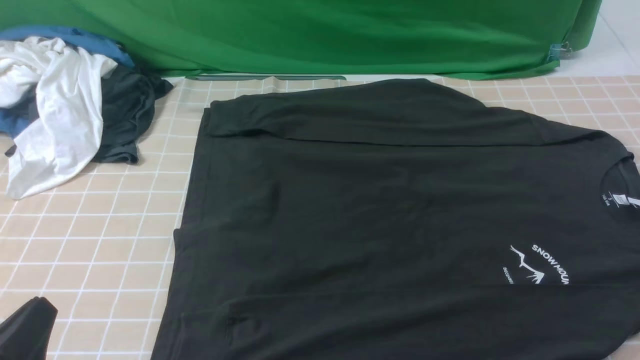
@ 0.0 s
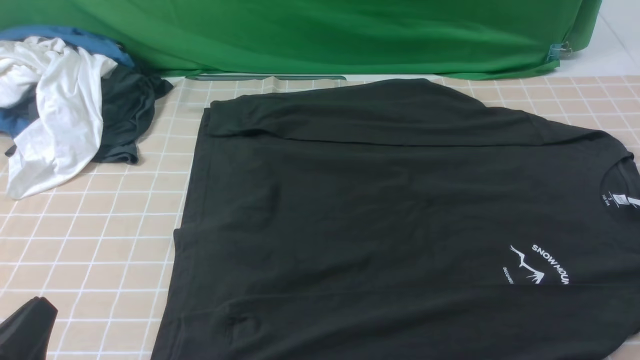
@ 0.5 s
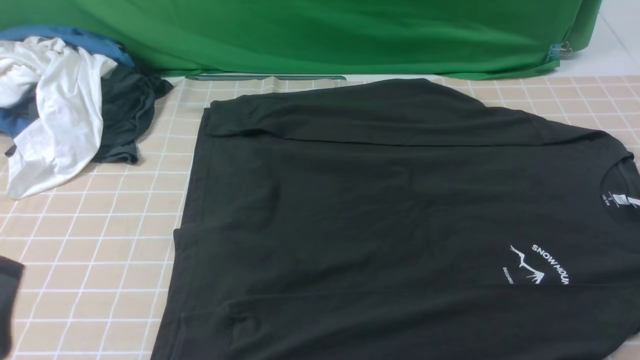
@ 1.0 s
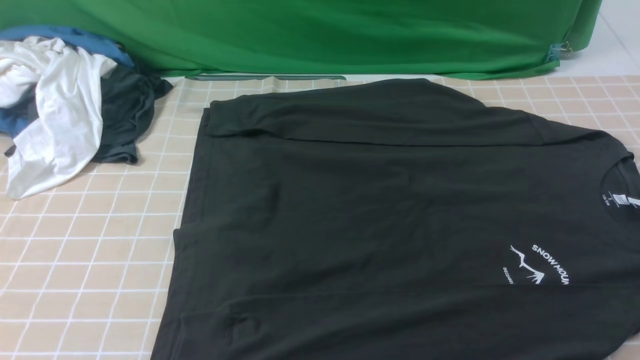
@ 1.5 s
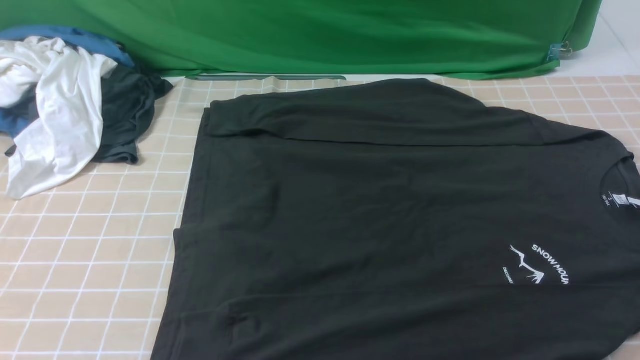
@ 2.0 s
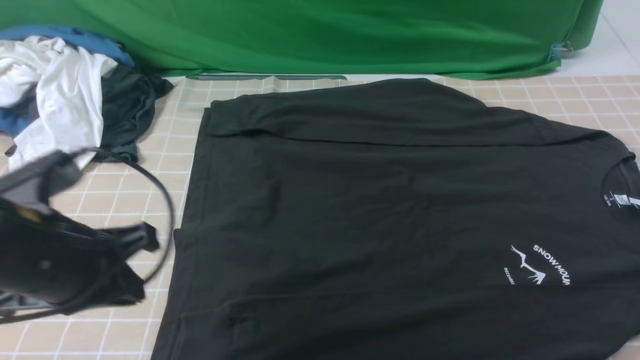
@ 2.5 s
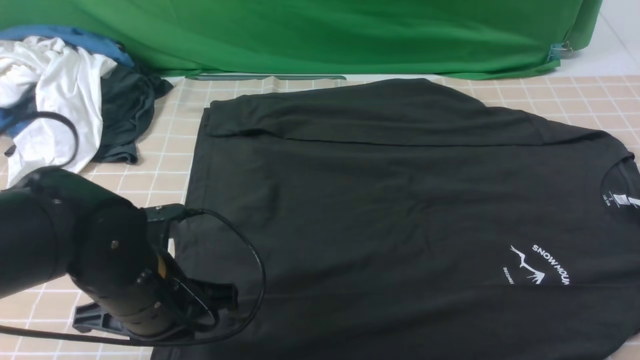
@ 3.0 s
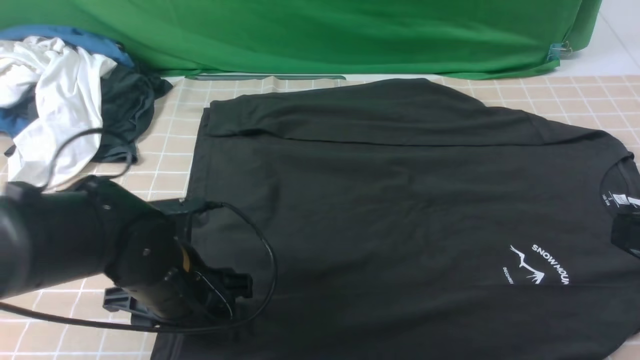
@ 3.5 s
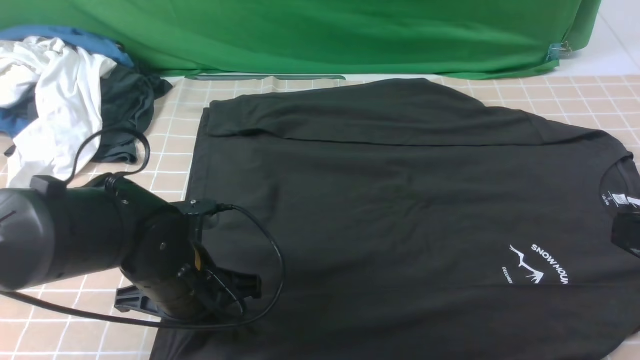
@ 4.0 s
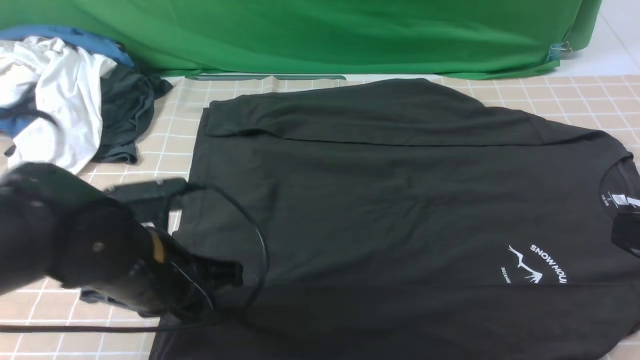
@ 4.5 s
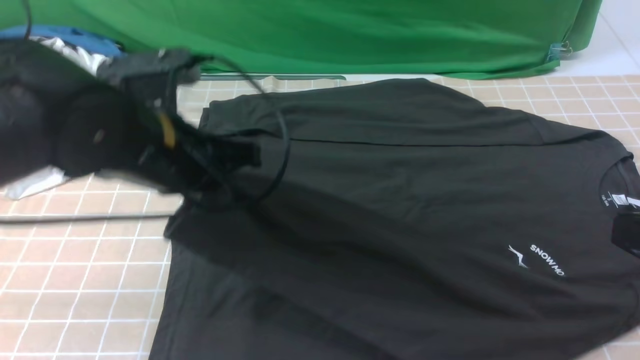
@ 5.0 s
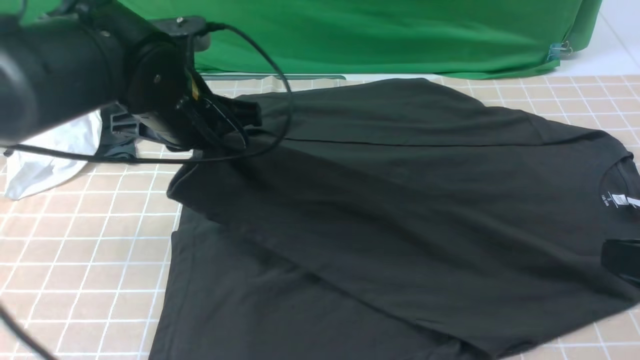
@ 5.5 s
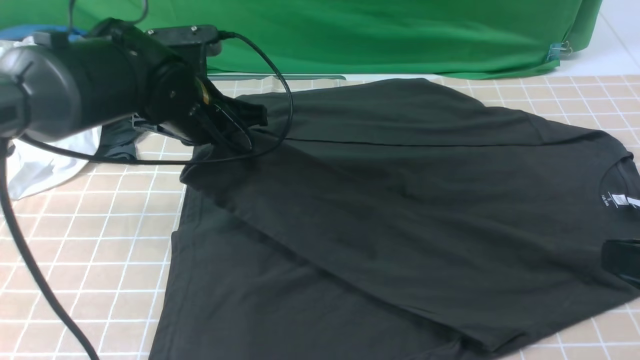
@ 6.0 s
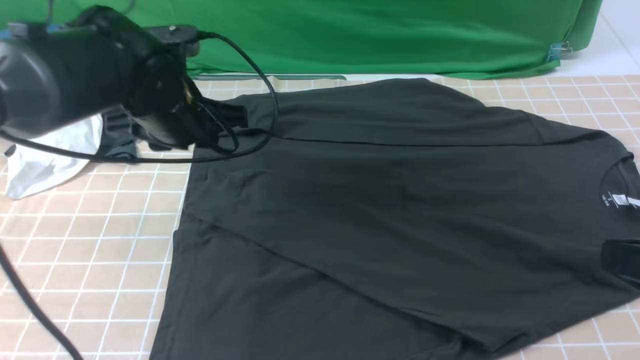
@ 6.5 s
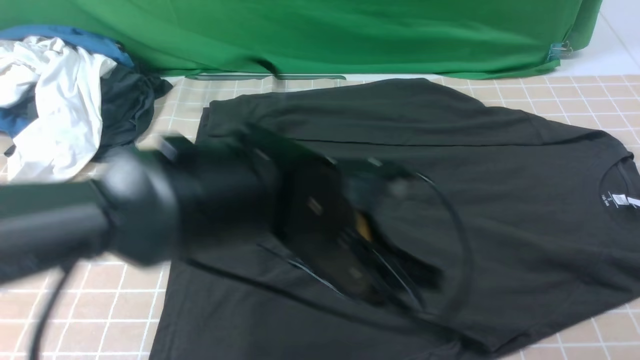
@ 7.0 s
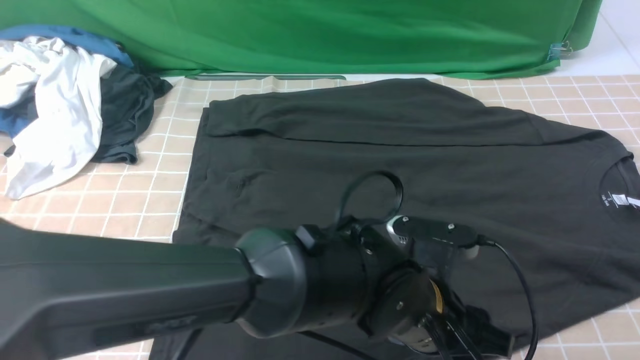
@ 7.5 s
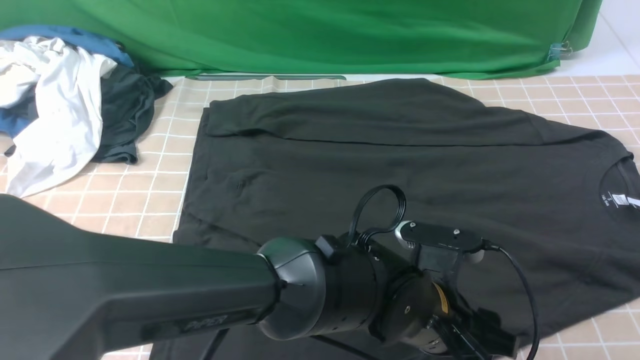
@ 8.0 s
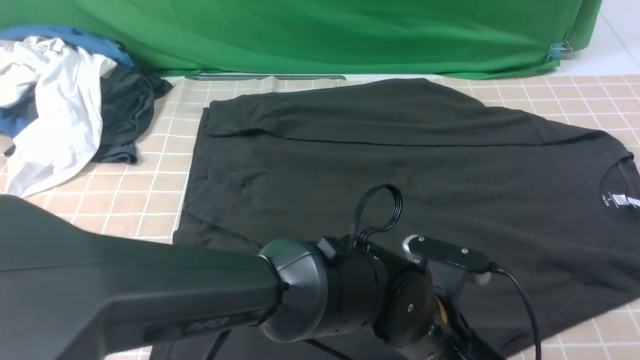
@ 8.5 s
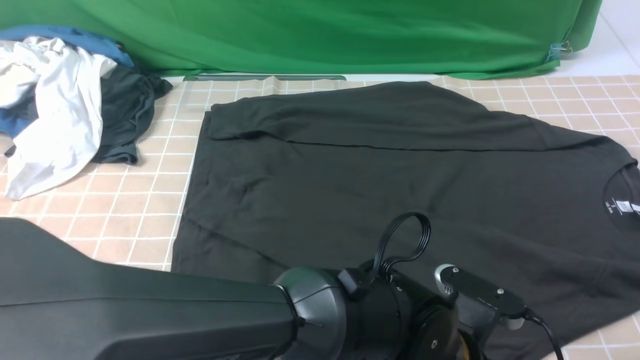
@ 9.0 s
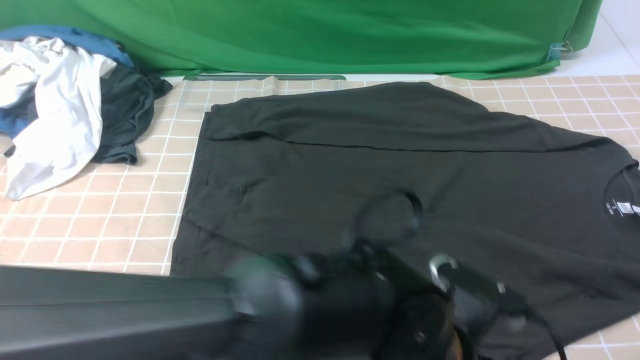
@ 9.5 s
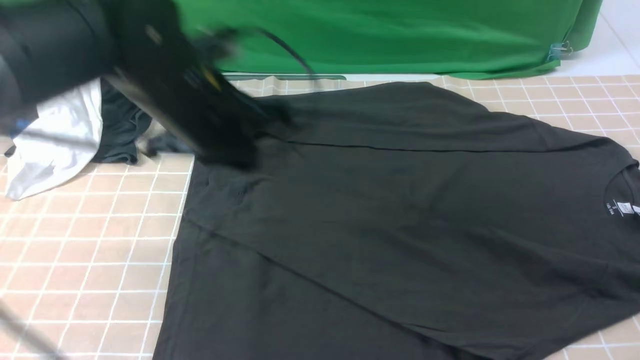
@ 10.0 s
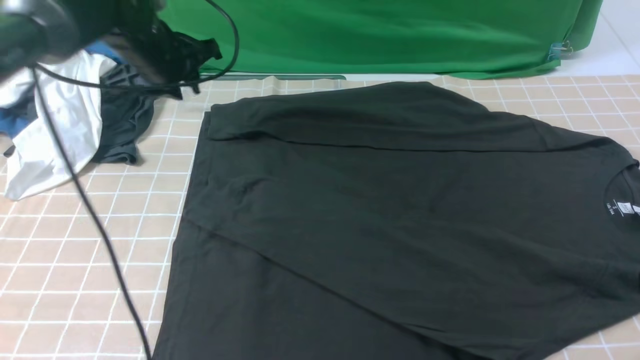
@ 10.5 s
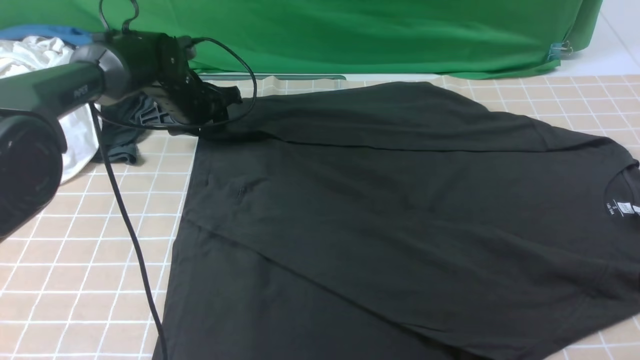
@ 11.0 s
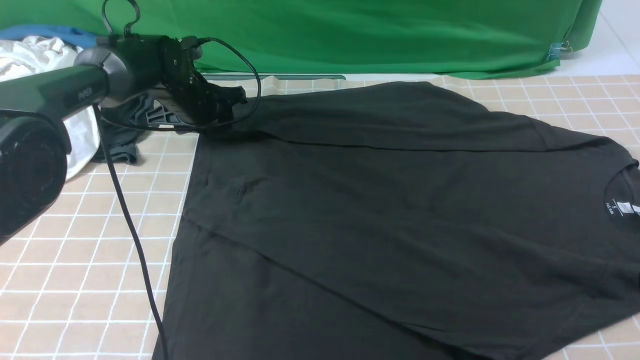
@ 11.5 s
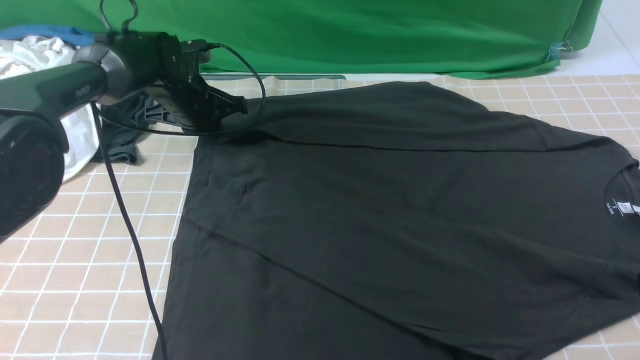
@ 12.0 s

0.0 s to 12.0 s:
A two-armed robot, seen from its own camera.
Step, 0.0 to 3.5 s: use the left arm to clamp the cuff closest to it.
Step, 4.5 to 6.0 s: use the left arm to drag and place the cuff at the centered position on the left edge of the fabric.
Step, 6.5 to 11.5 s: use the left arm to clamp the cuff farthest from it.
0.0 to 2.0 s: The left gripper shifts some 15 cm upward.
2.0 to 4.0 s: The left gripper travels downward, forward and to the right by some 25 cm, and opens and closes again. Meanwhile the right gripper travels upward, to the left and forward by roughly 15 cm, and closes.
4.0 to 6.0 s: The left gripper shifts approximately 15 cm forward and upward.
6.0 to 8.0 s: The left gripper heads to the right, backward and downward, covering roughly 30 cm, and opens its fingers.
8.0 to 10.0 s: The left gripper travels to the left, upward and forward by approximately 25 cm, and closes its fingers.
10.0 to 12.0 s: The left gripper is displaced forward, downward and to the left by roughly 20 cm, and opens, then closes again.

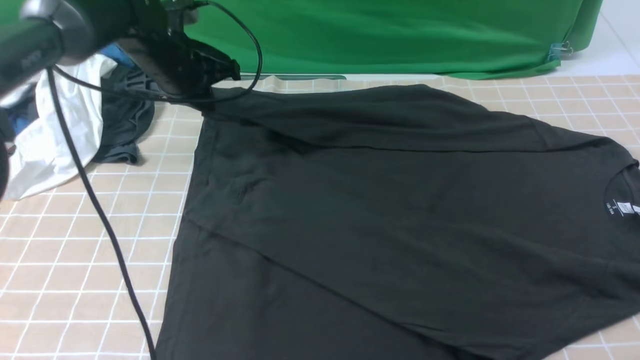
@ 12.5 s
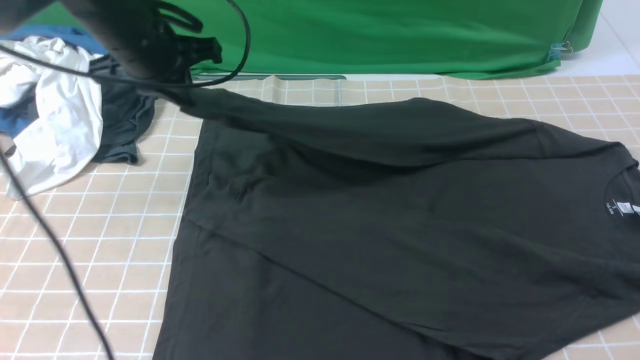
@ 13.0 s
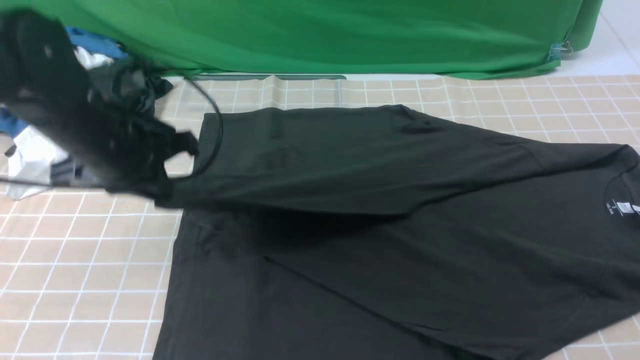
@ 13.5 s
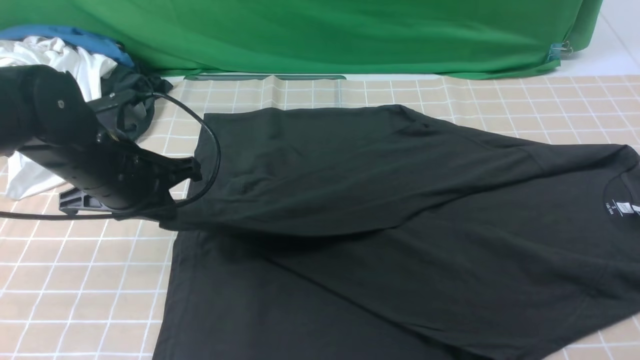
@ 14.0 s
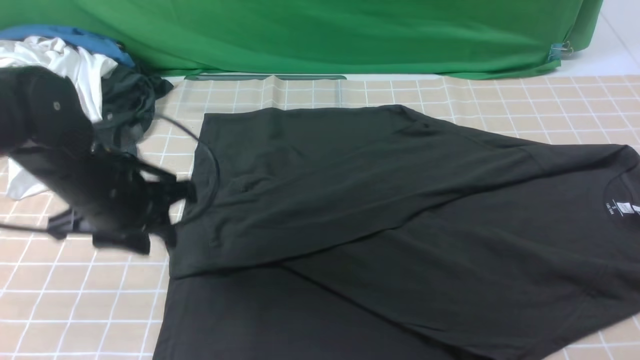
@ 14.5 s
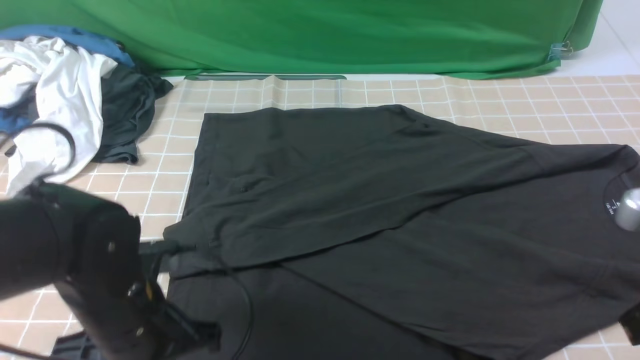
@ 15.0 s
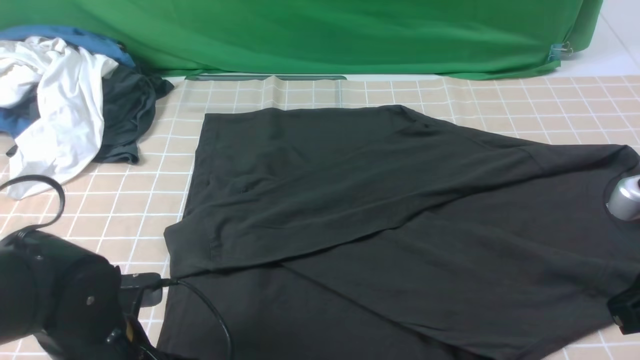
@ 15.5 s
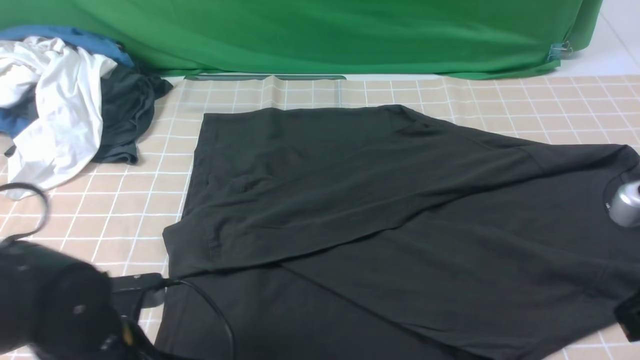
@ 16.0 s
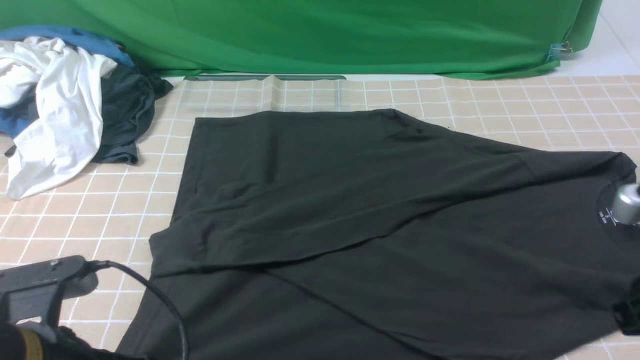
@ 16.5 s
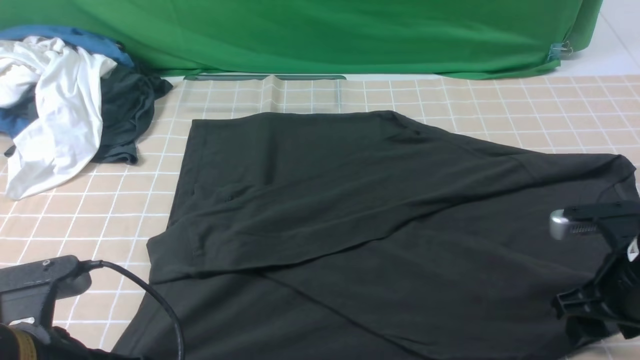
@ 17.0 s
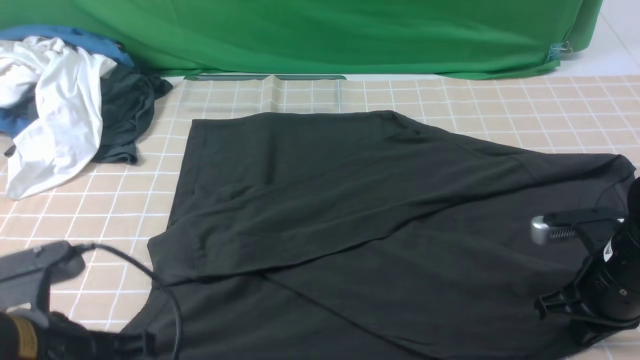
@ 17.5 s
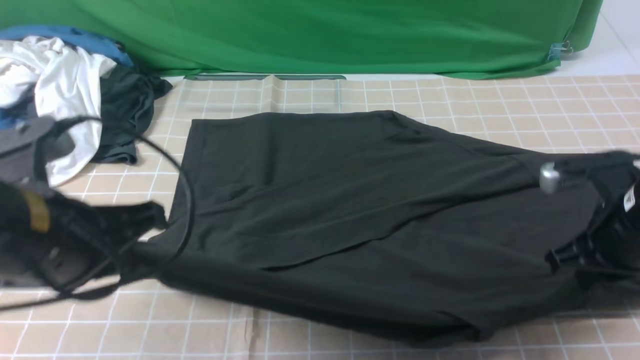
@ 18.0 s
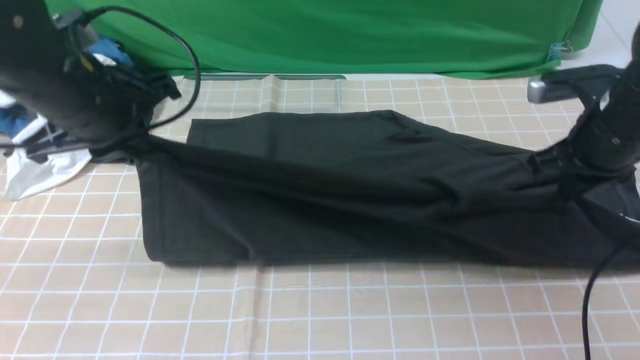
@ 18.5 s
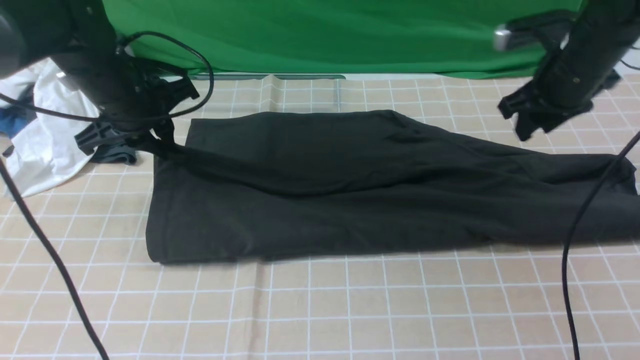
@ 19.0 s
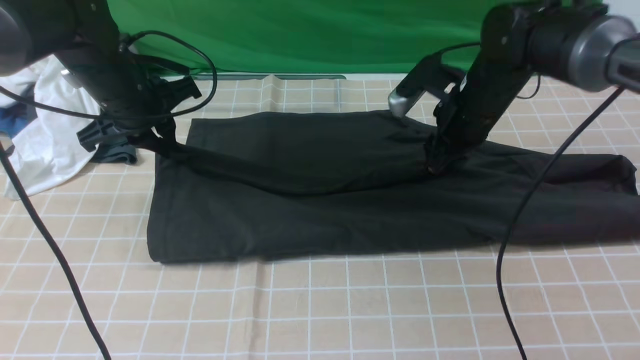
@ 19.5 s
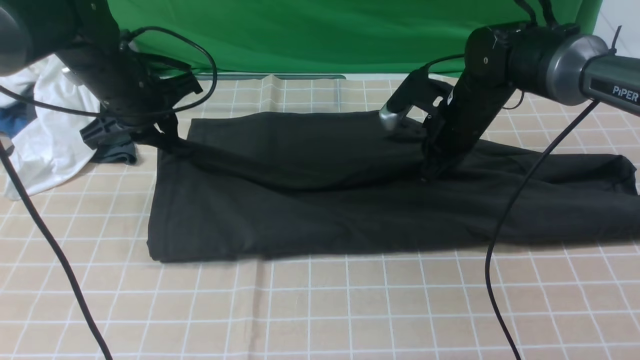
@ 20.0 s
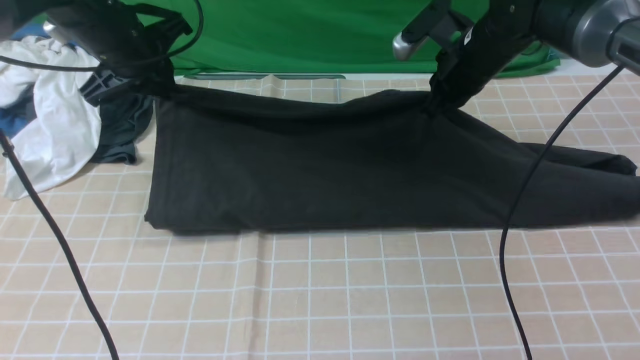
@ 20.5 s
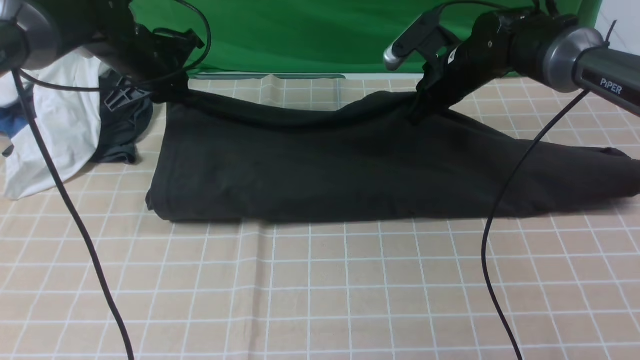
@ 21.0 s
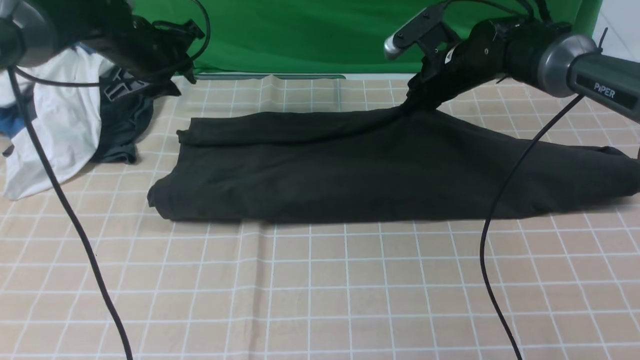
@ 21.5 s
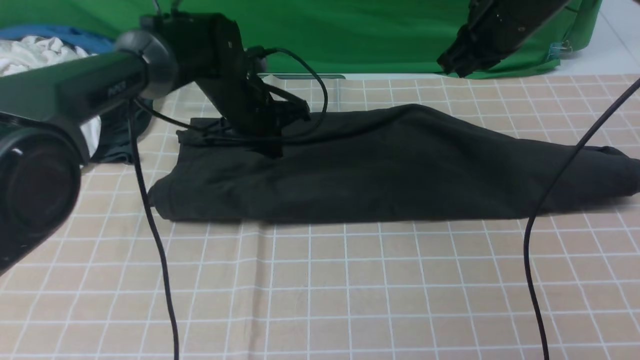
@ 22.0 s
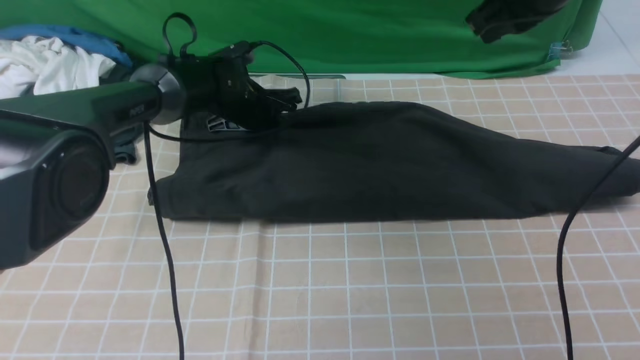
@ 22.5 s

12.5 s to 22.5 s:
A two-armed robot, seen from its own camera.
Step, 12.5 to 14.0 s: use the left arm to drag and drop the cuff onto the cuff closest to the left arm.
Step, 15.0 to 17.5 s: use both arms simultaneously to clamp the lower edge of the clothing fabric.
12.5 to 14.5 s: The left gripper is displaced backward by approximately 20 cm, and opens its fingers.
14.5 to 16.5 s: The right gripper shifts by approximately 5 cm, and opens; the left gripper goes roughly 15 cm backward, and closes up.
16.5 to 18.5 s: The grippers both shift forward by roughly 20 cm. The right gripper closes its fingers.
18.5 to 20.5 s: The right gripper shifts roughly 15 cm forward and to the left, and opens, then closes again. The left gripper heads forward, covering approximately 10 cm.
20.5 to 22.5 s: The left gripper heads downward, to the right and forward, covering approximately 15 cm. Meanwhile the right gripper travels upward and backward by some 15 cm, and opens, then closes again.
